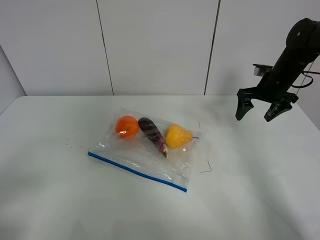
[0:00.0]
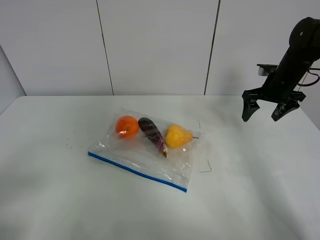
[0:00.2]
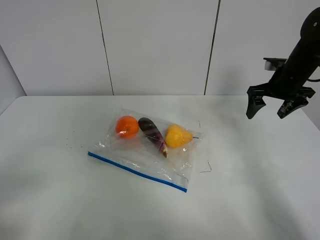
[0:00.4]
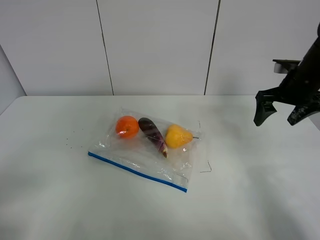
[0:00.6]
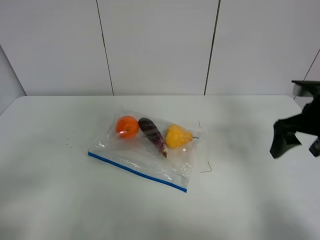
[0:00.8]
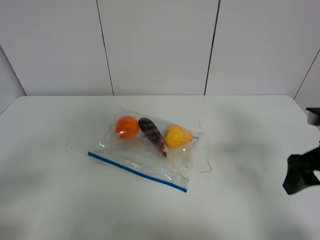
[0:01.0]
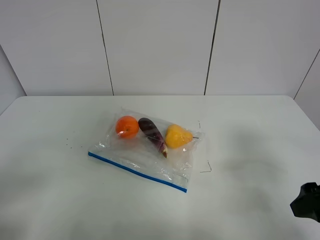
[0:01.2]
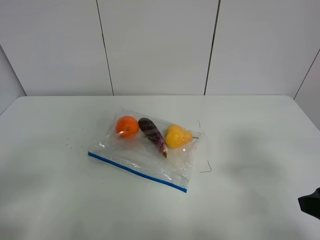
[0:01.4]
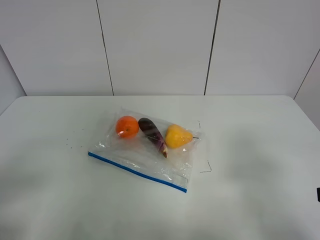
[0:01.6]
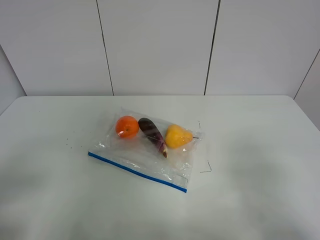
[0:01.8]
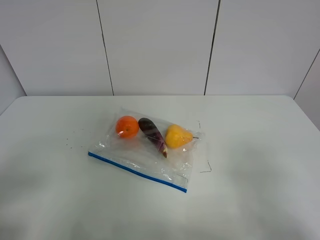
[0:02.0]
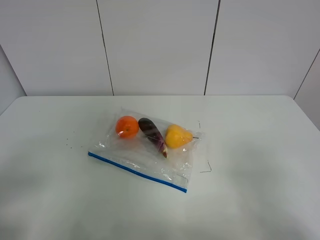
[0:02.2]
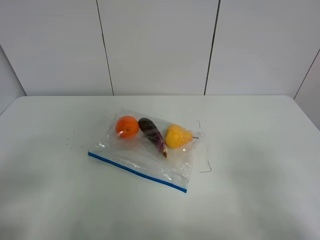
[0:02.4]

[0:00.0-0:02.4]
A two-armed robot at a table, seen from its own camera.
0:00.0 to 0:01.2: The right gripper moves backward, approximately 30 cm.
0:01.2 to 0:02.4: The right gripper travels backward by approximately 10 cm.

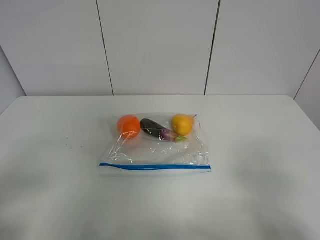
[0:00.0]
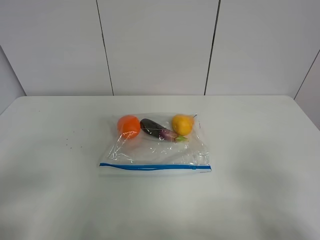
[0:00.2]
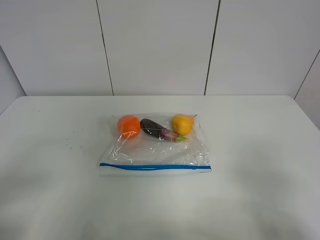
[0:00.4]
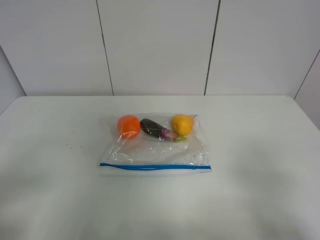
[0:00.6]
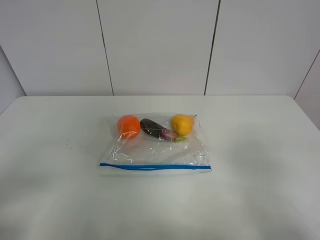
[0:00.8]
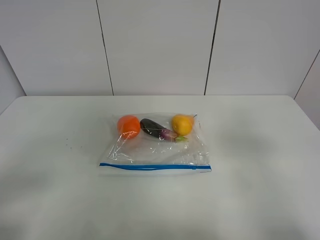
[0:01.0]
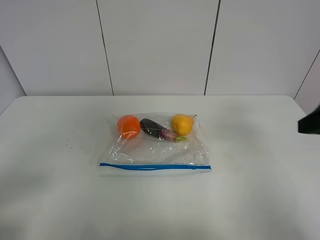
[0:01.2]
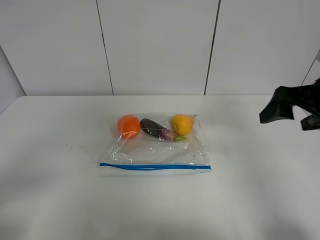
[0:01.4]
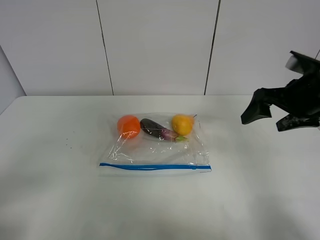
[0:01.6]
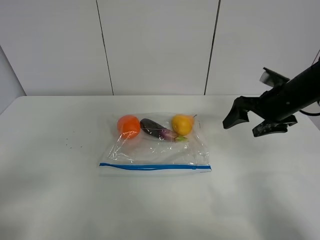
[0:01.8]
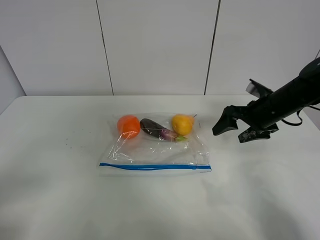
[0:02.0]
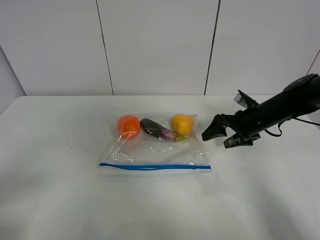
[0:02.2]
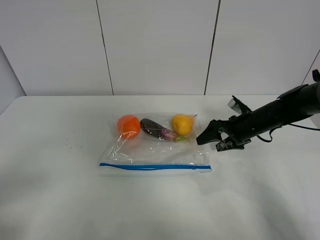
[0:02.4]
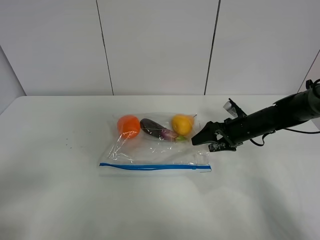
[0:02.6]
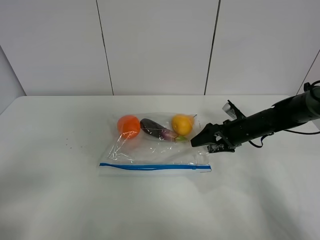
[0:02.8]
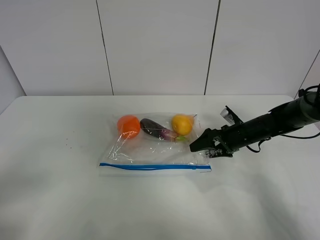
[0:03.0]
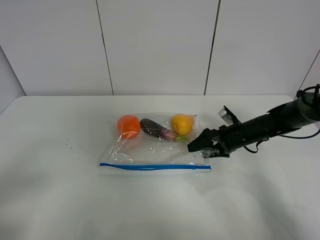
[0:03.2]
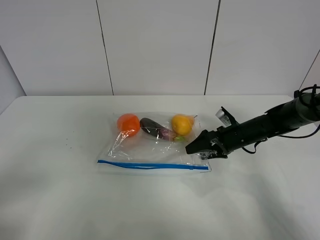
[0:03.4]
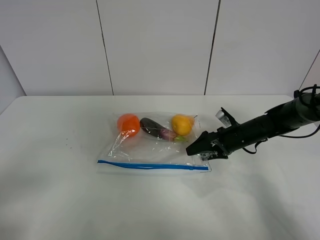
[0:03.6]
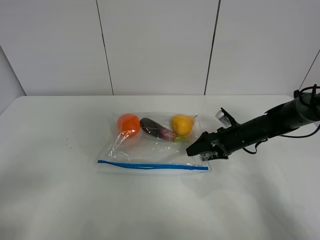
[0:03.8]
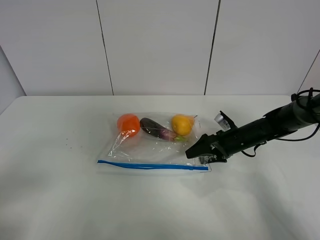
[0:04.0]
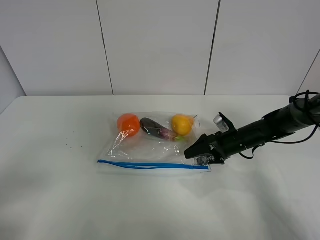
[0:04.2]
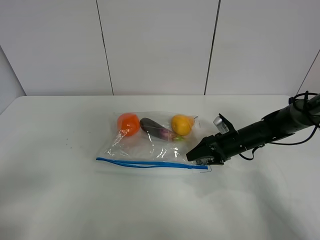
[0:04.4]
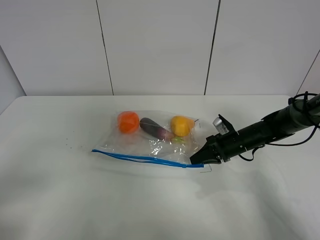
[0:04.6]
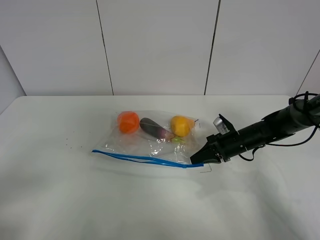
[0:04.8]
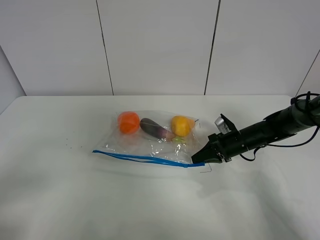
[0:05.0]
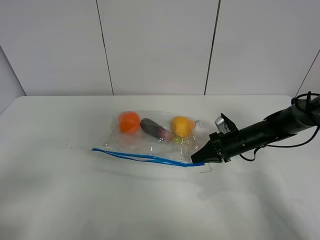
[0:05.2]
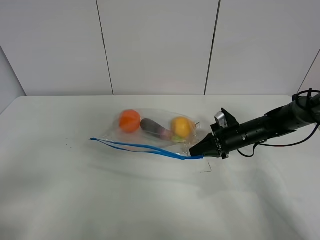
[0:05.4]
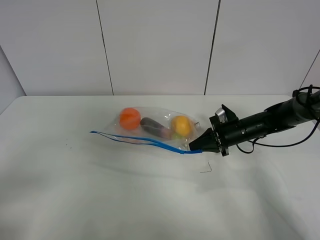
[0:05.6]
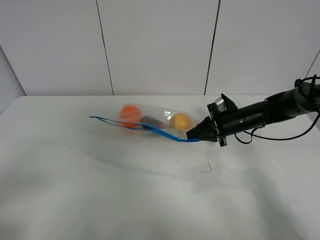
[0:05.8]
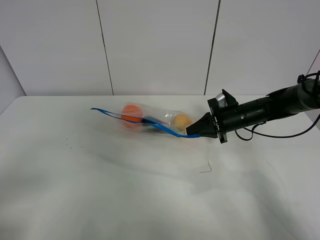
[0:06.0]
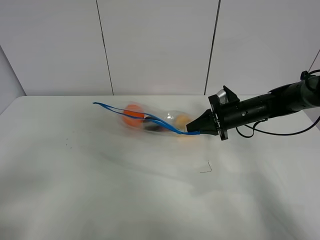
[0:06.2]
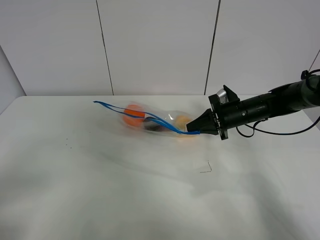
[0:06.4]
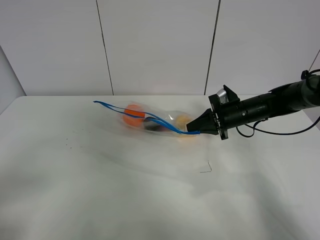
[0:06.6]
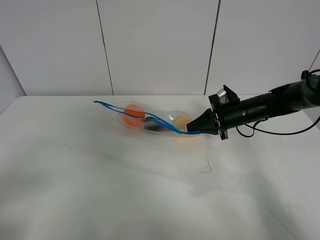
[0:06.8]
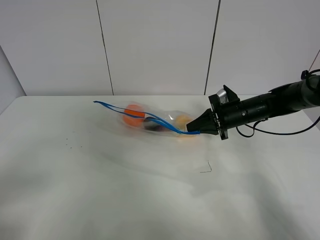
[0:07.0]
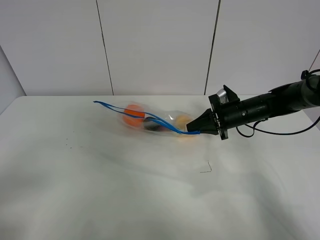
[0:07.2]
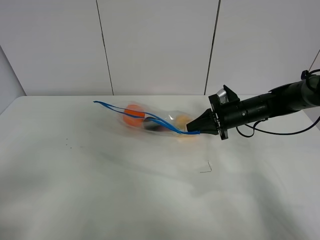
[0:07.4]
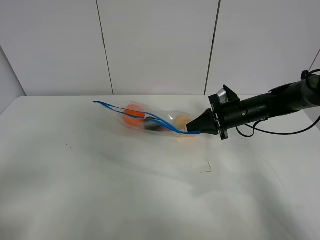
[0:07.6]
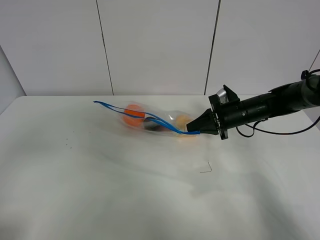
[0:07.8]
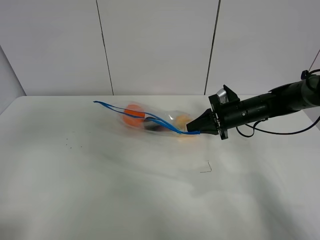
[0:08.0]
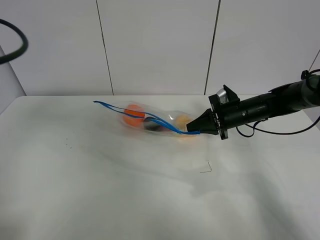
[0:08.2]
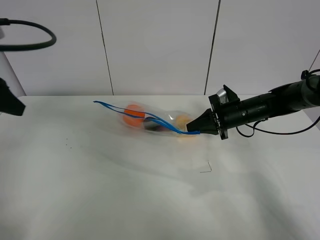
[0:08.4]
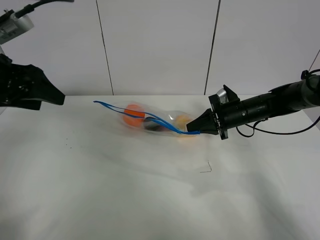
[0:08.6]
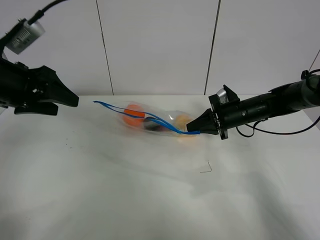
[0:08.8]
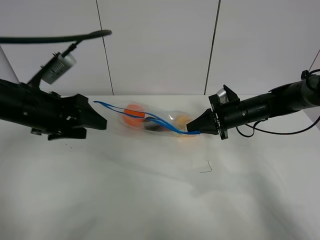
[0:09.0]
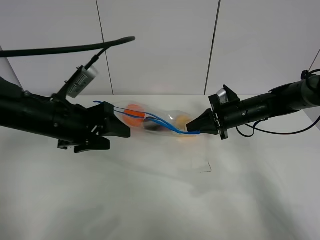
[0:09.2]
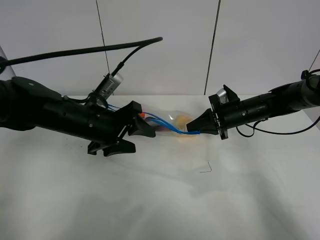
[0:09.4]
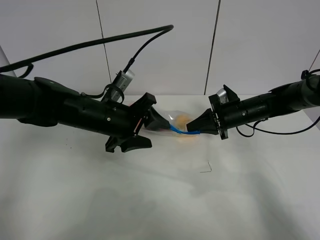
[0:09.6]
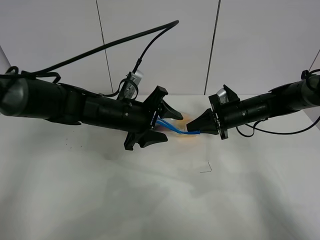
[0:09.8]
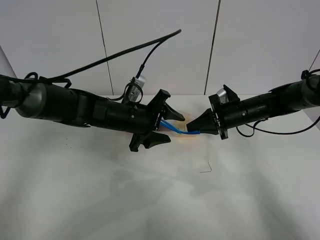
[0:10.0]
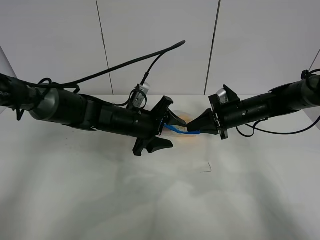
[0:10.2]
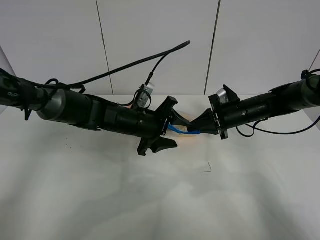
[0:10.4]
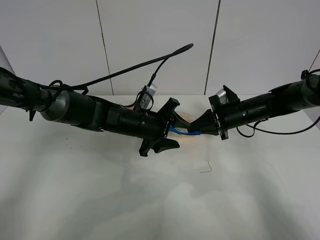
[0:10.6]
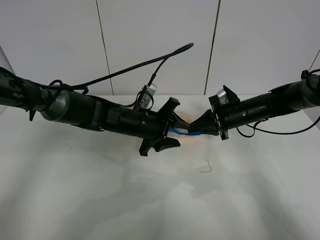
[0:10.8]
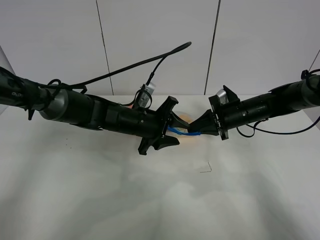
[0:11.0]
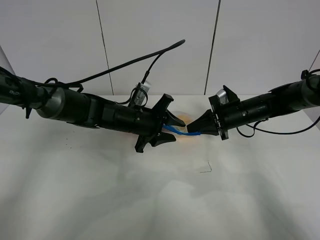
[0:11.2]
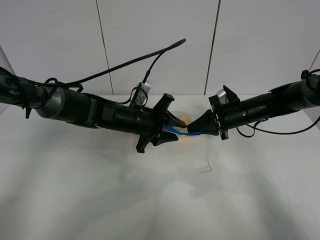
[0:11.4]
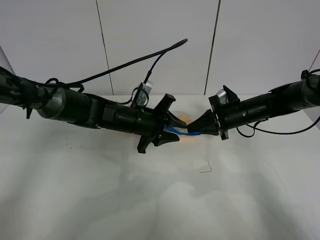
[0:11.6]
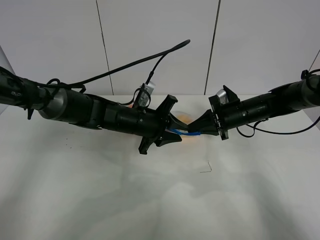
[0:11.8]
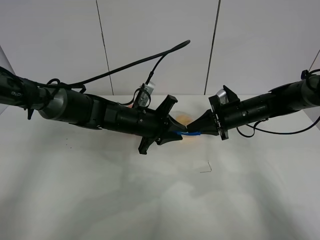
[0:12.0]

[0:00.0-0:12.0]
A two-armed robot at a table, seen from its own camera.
Step, 0:00.0 to 0:04.6: Grasp the fruit bag with right gripper.
Step, 0:04.8 to 0:07.0: Lift the fruit bag with your right gripper.
0:00.0 to 0:01.6: The right gripper travels forward by some 30 cm.
0:01.6 to 0:03.0: The right gripper travels downward by roughly 20 cm.
0:03.0 to 0:04.4: The right gripper closes its fingers.
0:04.4 to 0:06.0: The right gripper is displaced upward by approximately 5 cm, and closes its fingers.
0:06.0 to 0:07.6: There are only small adjustments of the grippers.
0:07.6 to 0:09.0: The left gripper heads forward, covering about 25 cm.
0:09.0 to 0:10.4: The left gripper travels to the right, downward and forward by some 20 cm.
0:10.4 to 0:12.0: The left gripper closes.

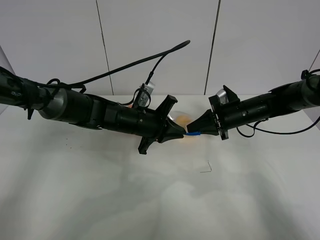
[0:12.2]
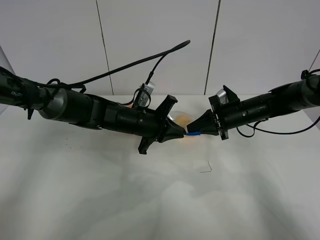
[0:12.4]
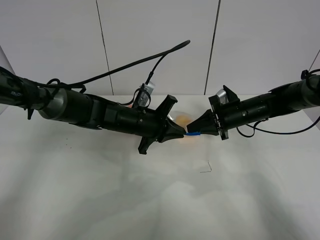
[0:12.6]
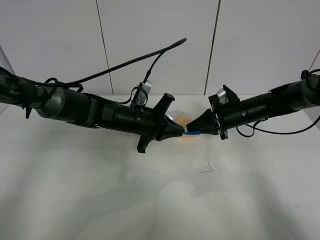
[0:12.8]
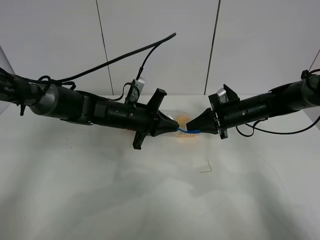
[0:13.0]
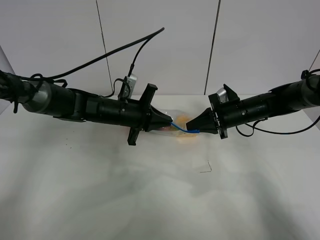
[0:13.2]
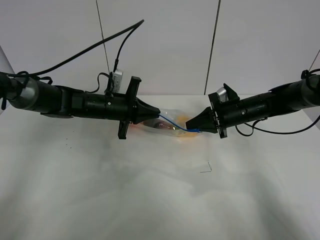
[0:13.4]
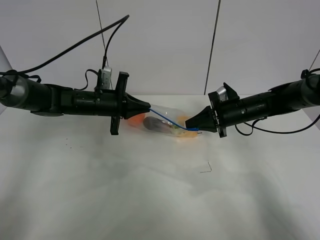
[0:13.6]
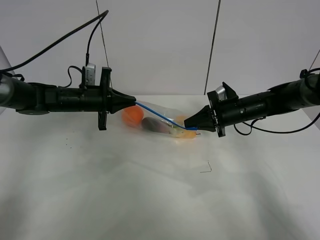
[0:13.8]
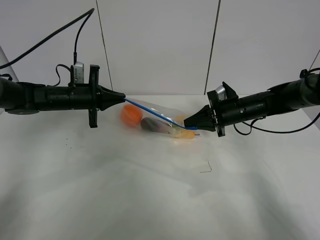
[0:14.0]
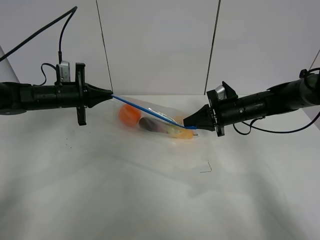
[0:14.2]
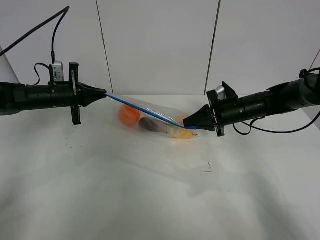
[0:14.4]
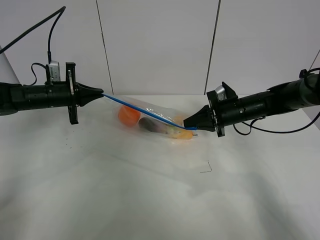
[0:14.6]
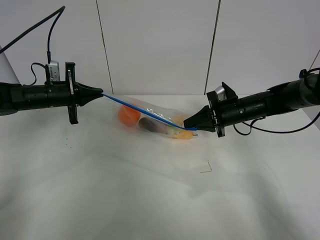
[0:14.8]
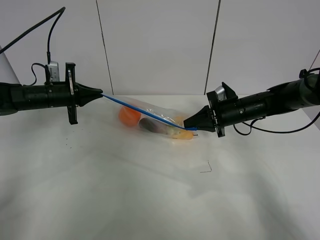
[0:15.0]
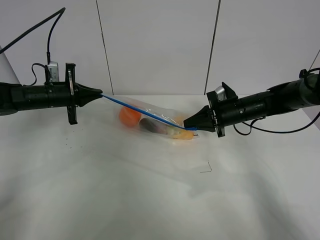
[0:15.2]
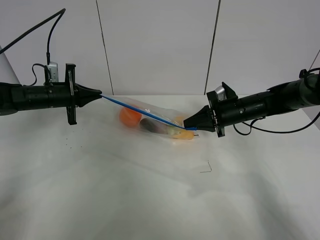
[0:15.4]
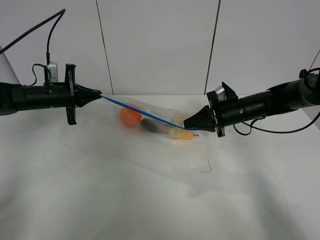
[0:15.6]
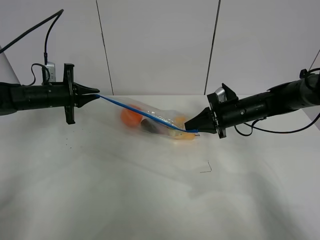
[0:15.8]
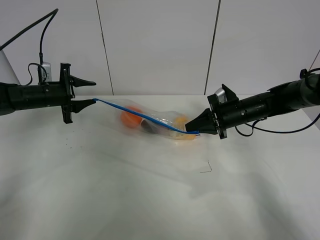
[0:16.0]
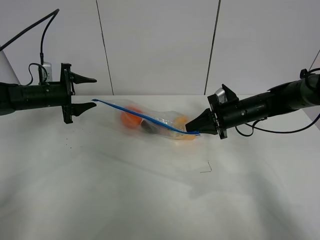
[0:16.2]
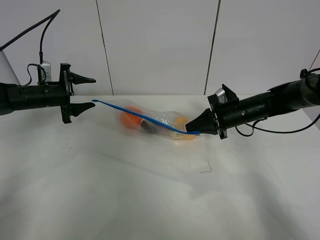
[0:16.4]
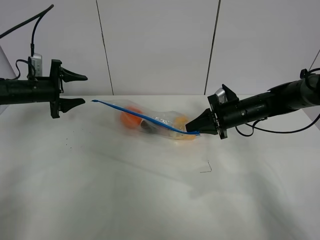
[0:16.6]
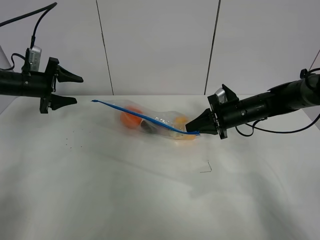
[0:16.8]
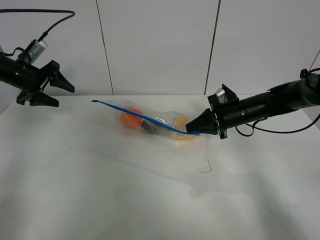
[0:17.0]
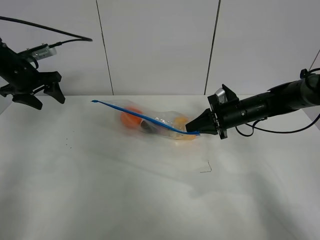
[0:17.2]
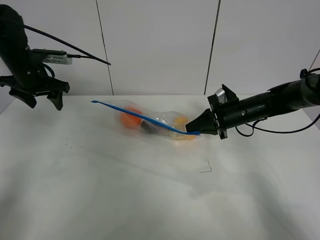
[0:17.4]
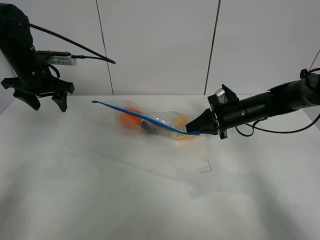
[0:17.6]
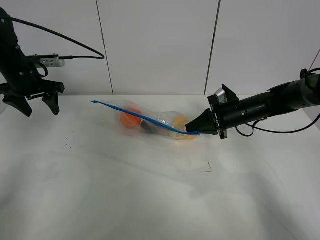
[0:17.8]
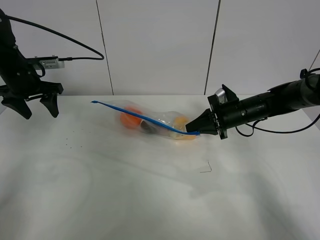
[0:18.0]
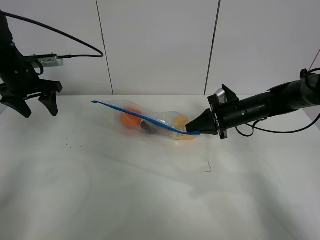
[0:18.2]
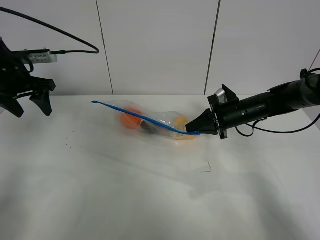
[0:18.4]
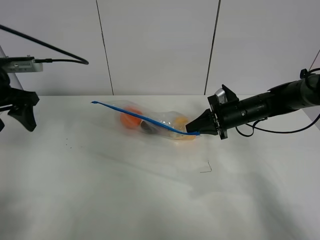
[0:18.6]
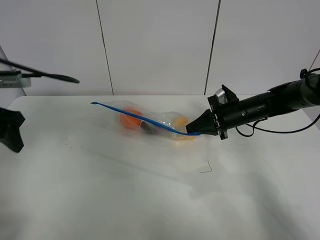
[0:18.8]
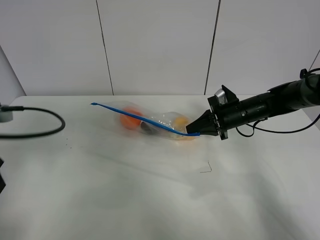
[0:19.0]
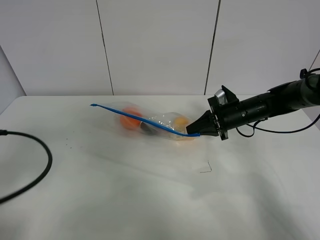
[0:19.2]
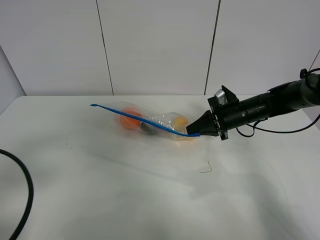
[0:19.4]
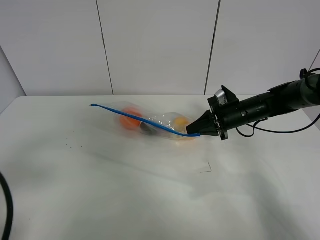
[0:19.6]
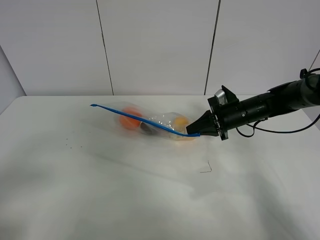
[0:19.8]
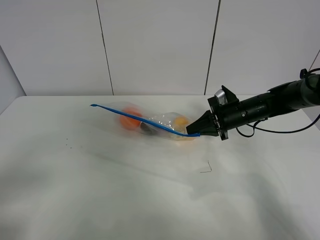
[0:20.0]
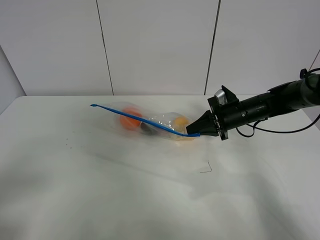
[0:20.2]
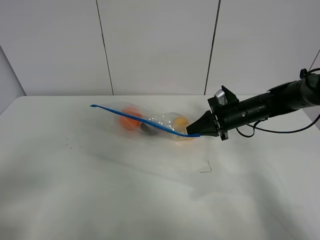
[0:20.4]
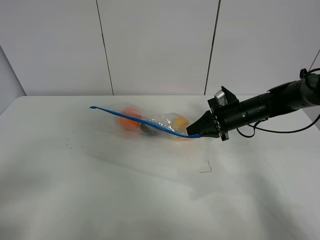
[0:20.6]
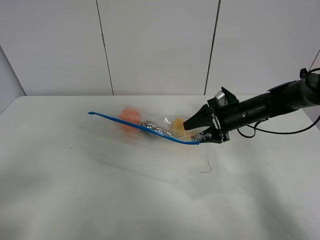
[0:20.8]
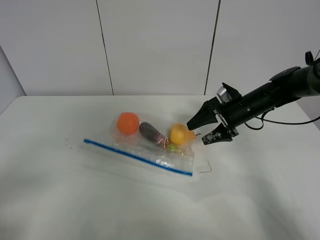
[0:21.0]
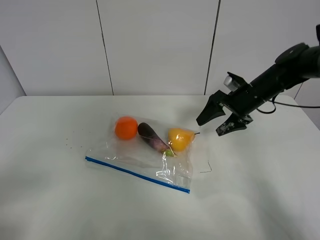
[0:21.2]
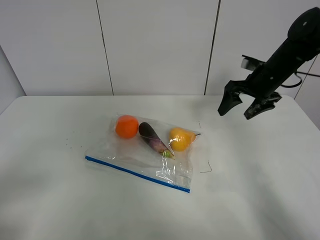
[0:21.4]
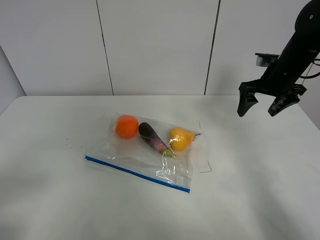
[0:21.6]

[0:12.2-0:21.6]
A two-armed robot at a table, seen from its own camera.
Step, 0:12.2 to 0:16.2: Pull the fruit bag with left gripper.
0:12.2 to 0:13.8: The left gripper moves to the left and forward, roughly 15 cm.
0:13.8 to 0:15.4: The left gripper heads to the left, covering roughly 10 cm.
0:15.4 to 0:17.0: The left gripper goes about 10 cm upward and to the left, and opens.
0:17.0 to 0:18.4: The left gripper moves backward, about 5 cm.
0:18.4 to 0:20.0: The left gripper heads backward, covering roughly 35 cm.
0:20.0 to 0:21.6: The right gripper goes some 15 cm upward and to the right, and opens up.
